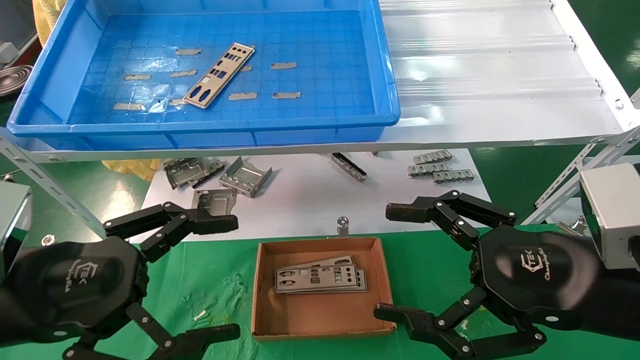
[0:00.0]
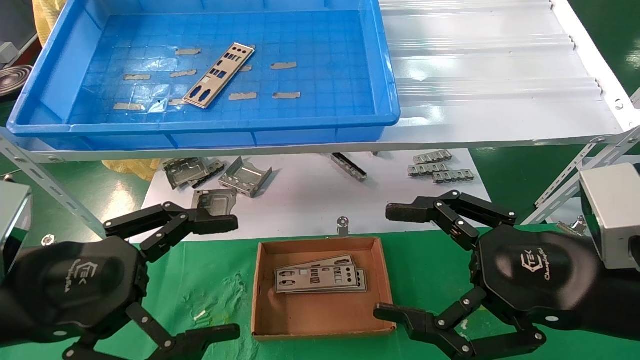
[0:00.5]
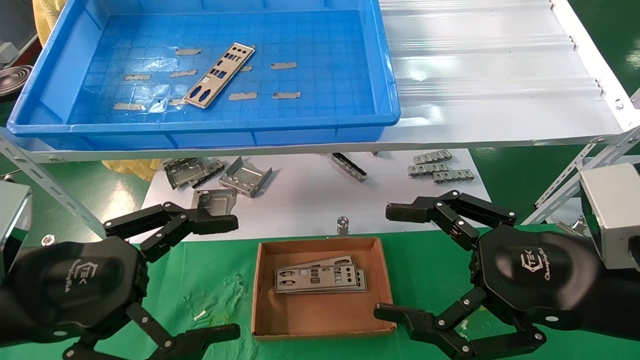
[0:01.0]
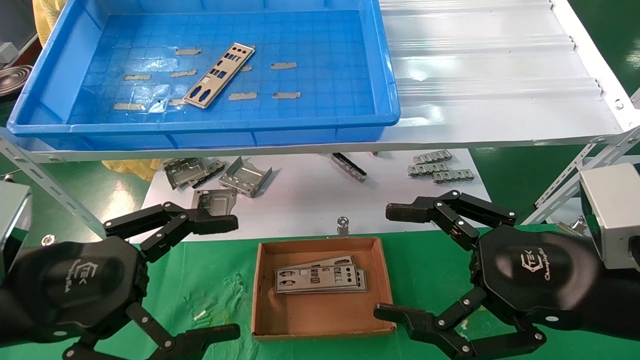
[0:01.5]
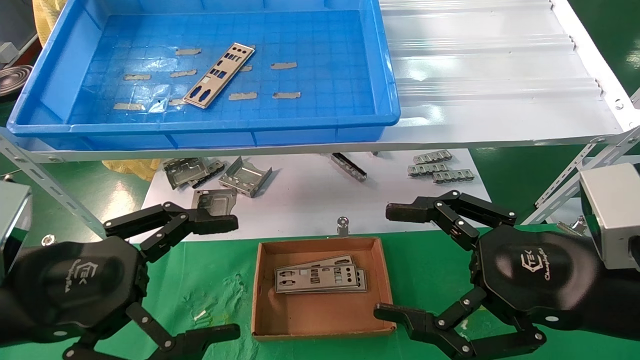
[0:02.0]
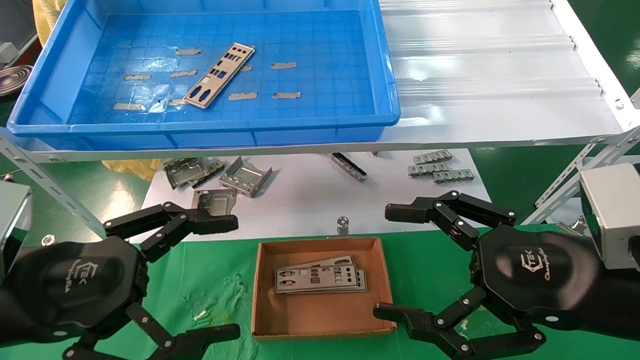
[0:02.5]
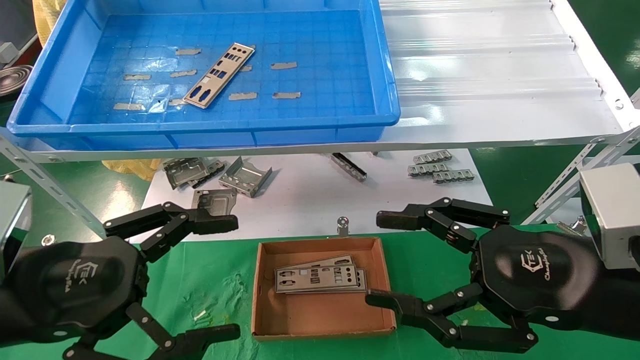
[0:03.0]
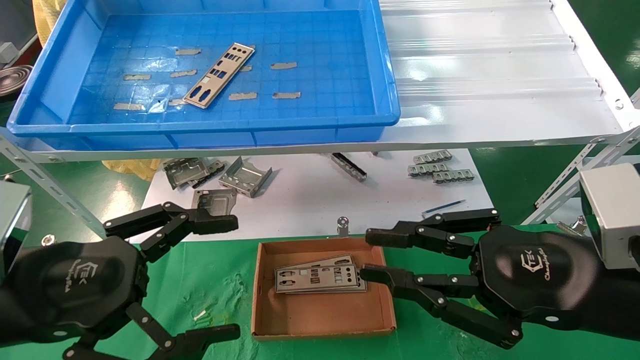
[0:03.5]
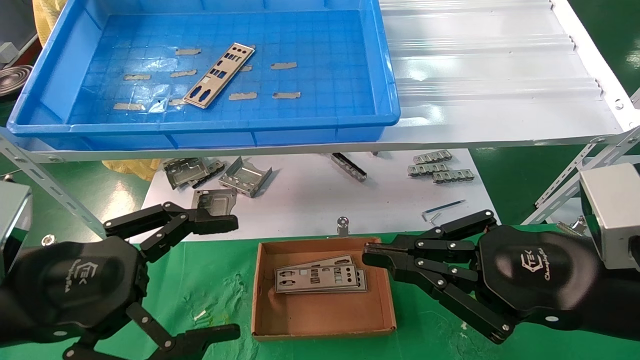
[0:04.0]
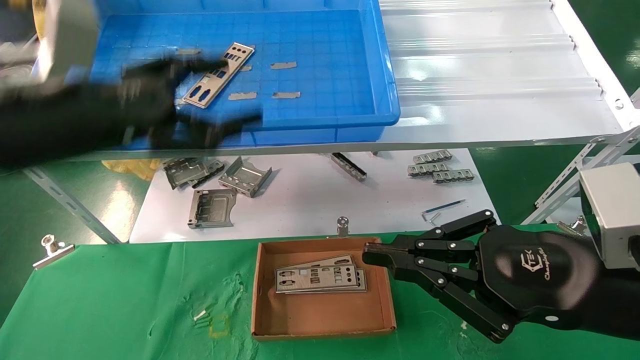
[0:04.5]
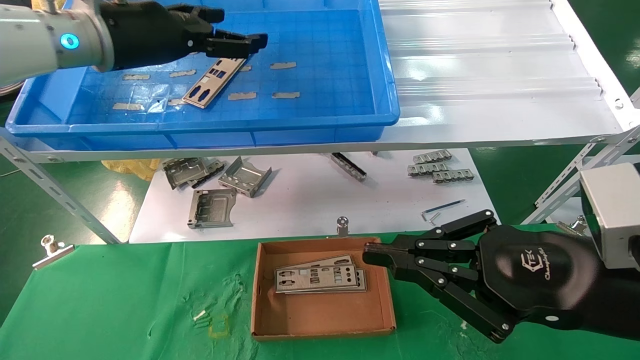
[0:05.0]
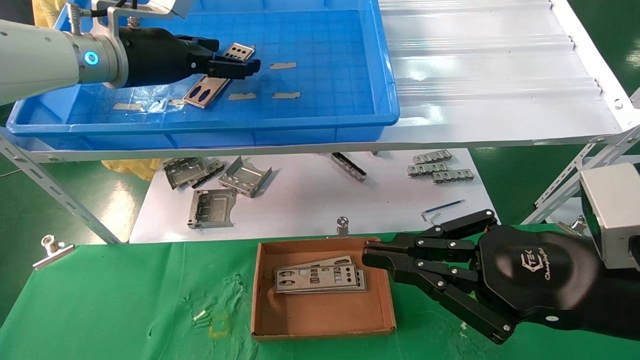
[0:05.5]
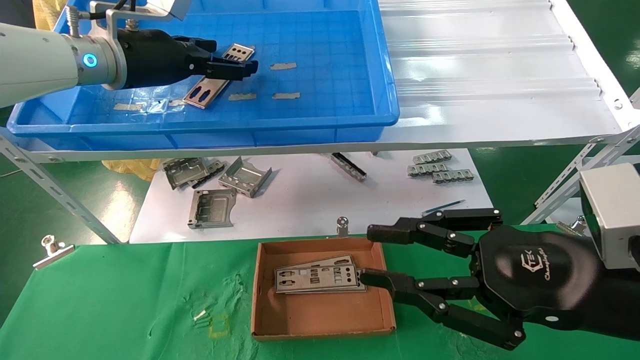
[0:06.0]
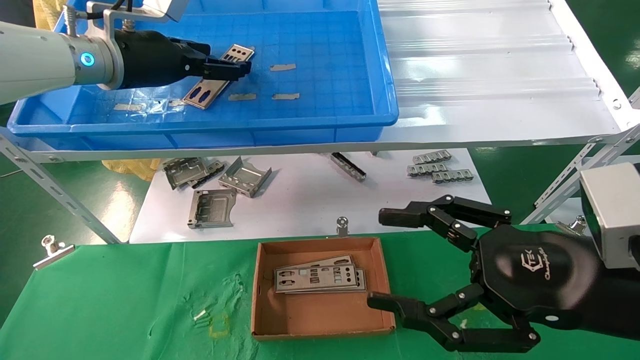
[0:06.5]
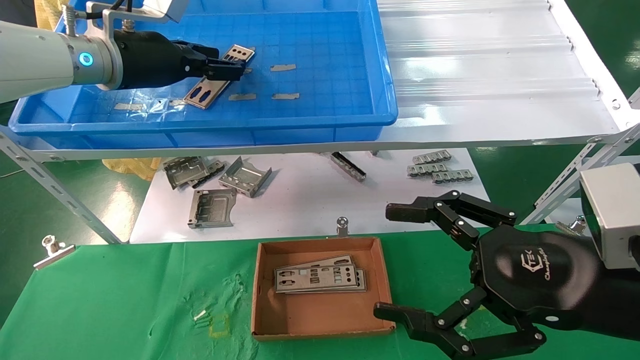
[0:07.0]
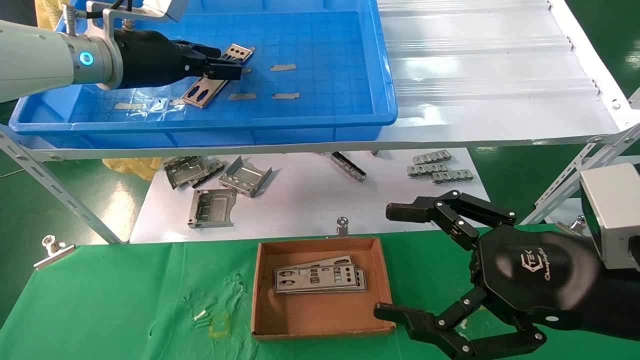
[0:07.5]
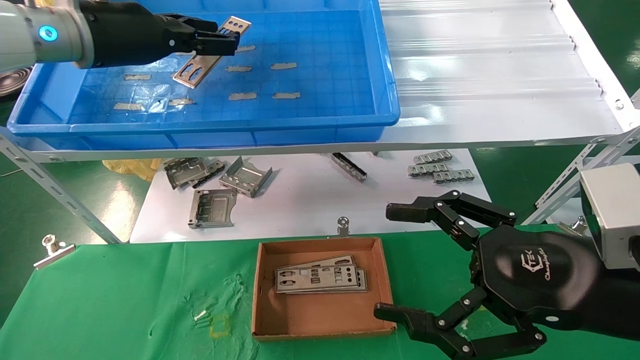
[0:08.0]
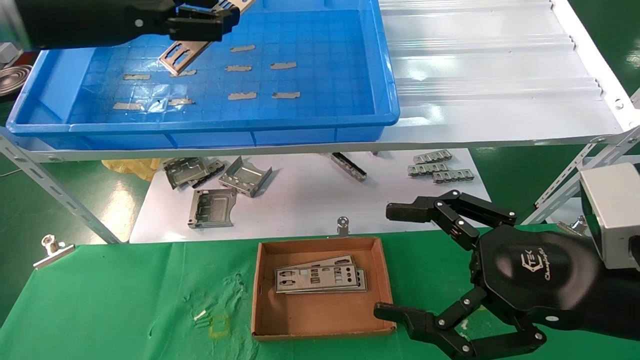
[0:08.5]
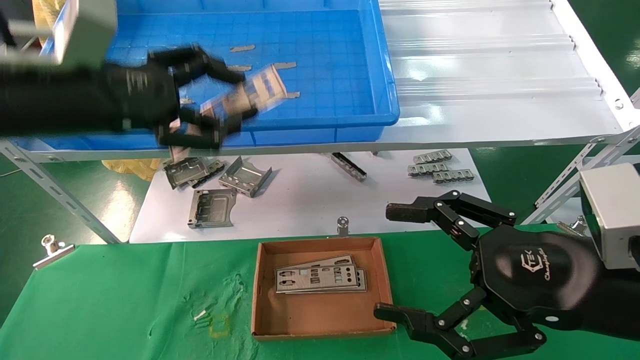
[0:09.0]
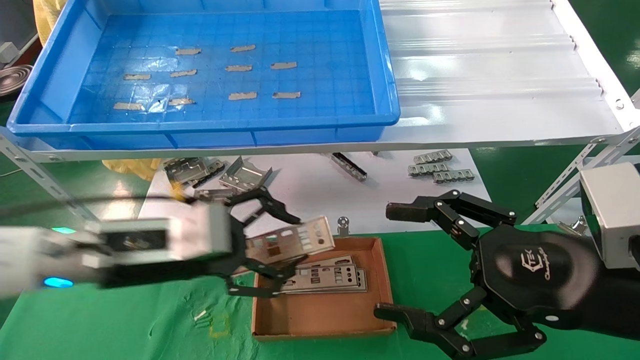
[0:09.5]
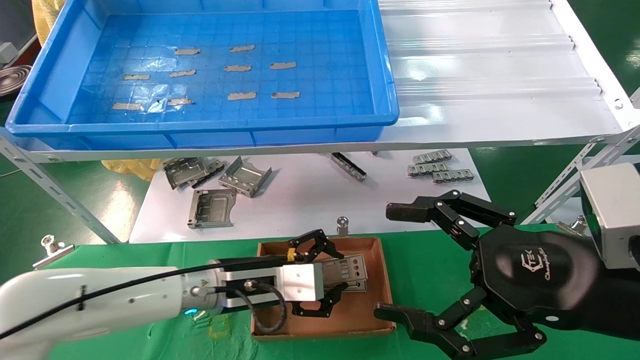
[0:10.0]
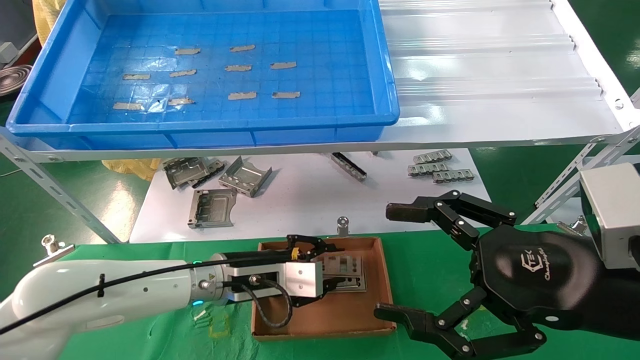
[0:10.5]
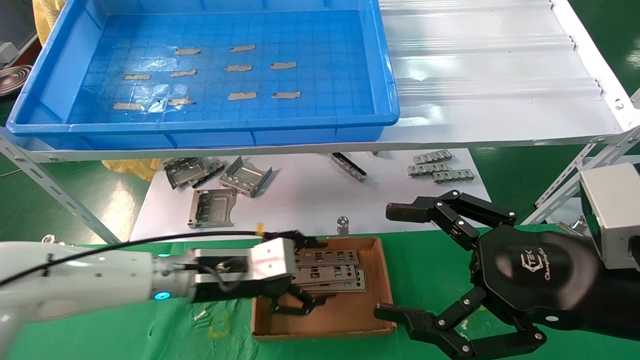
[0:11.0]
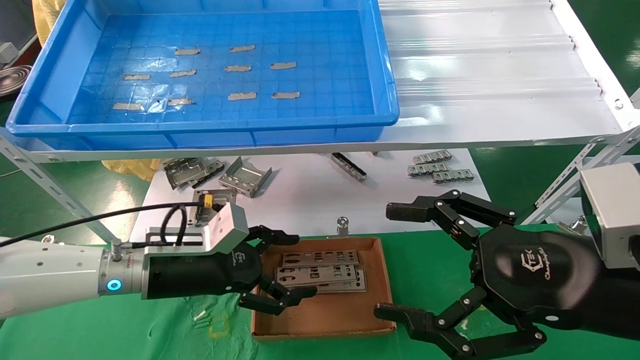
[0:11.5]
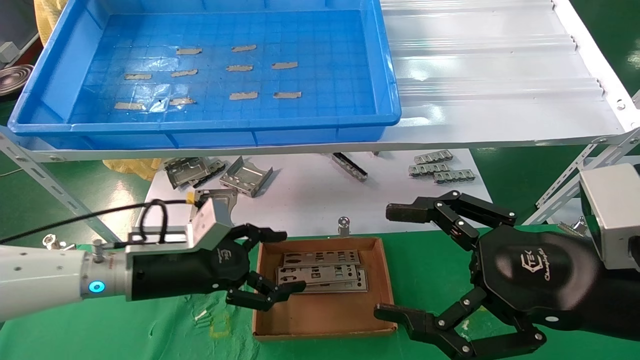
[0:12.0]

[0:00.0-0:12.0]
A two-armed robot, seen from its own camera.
Task of the whole recording: pick up the parts on the tray and put them in the cardboard box.
Step, 0:05.0 to 0:07.0: Pick up the IO bracket from the container box.
Step, 0:07.5 to 0:10.5: Place the IO bracket into the ingredient slot.
0:00.0 to 0:02.0: The two grippers keep their place.
0:02.0 to 0:04.0: The right gripper closes up.
0:04.0 to 0:06.0: The left gripper shifts about 30 cm forward and upward.
0:06.0 to 0:08.0: The left gripper ends up about 5 cm from where it was, and closes its fingers. Meanwhile the right gripper opens its fingers.
0:08.0 to 0:10.0: The left gripper is displaced downward and to the right by approximately 35 cm.
0:10.0 to 0:12.0: The left gripper travels to the left by roughly 10 cm, and opens its fingers.

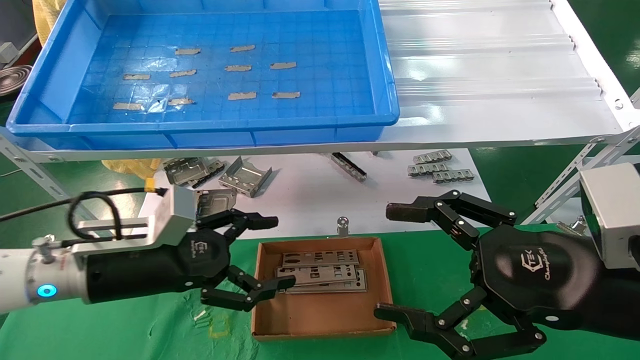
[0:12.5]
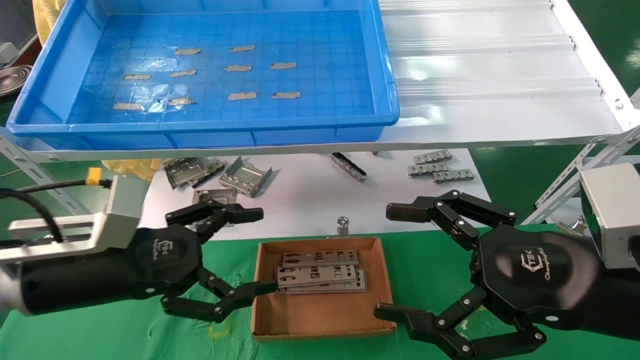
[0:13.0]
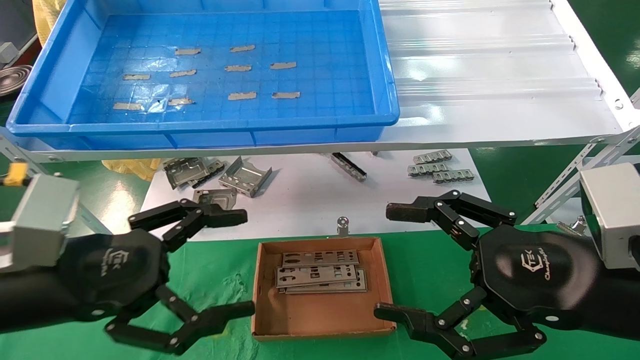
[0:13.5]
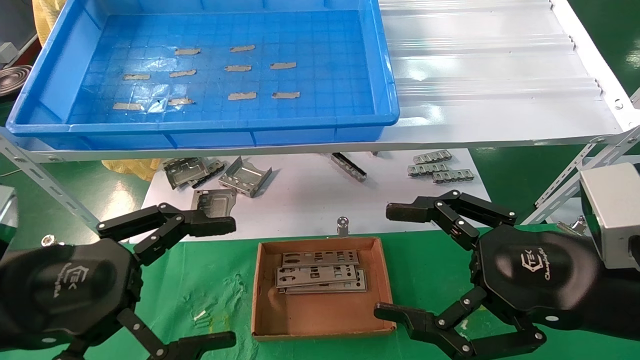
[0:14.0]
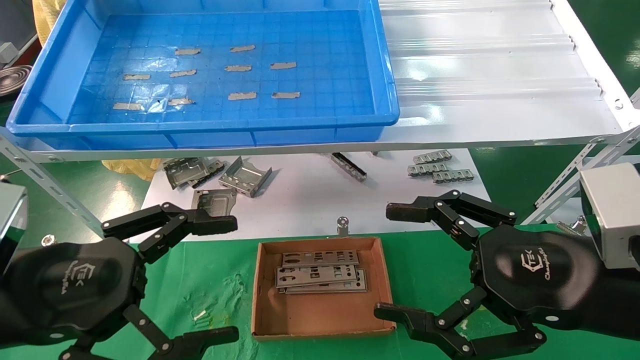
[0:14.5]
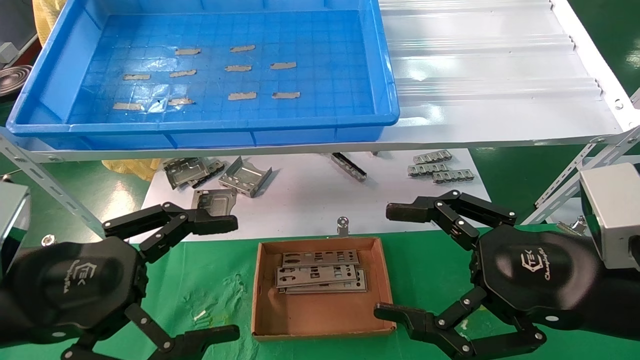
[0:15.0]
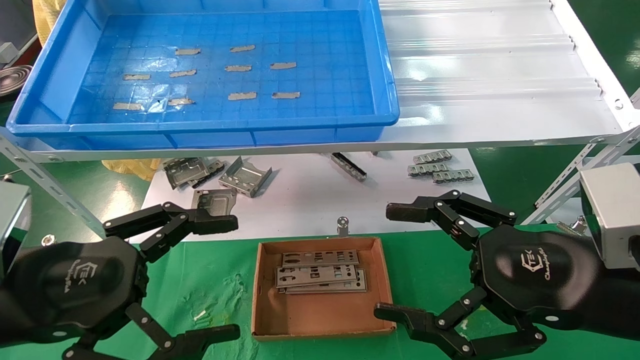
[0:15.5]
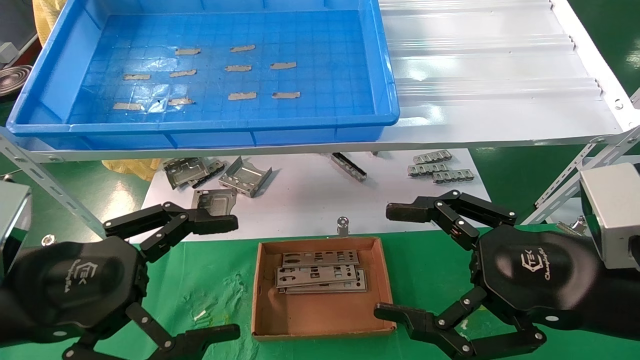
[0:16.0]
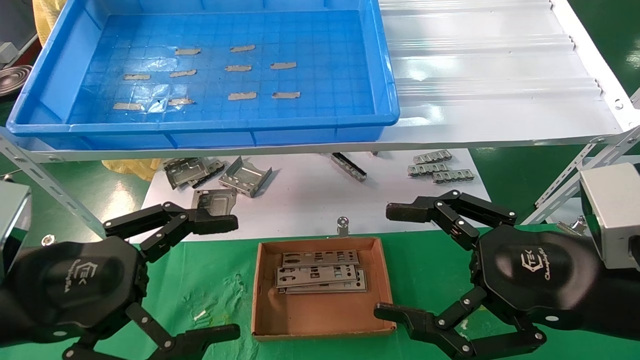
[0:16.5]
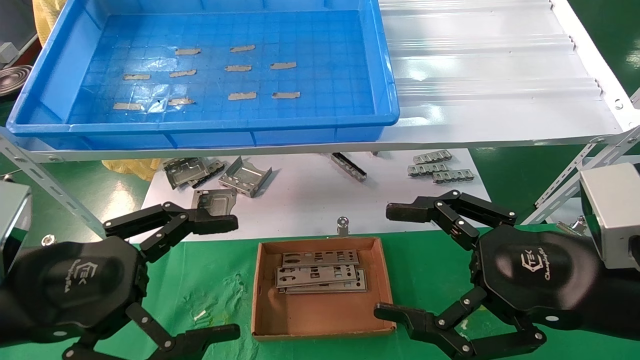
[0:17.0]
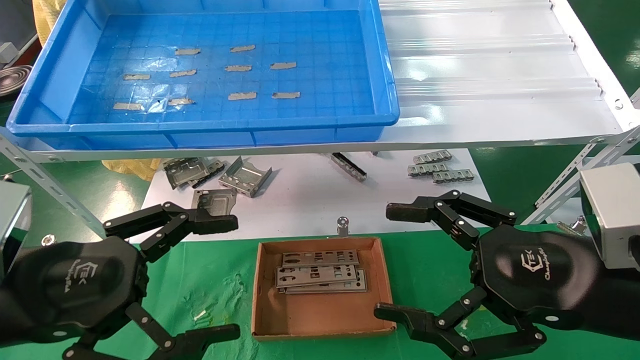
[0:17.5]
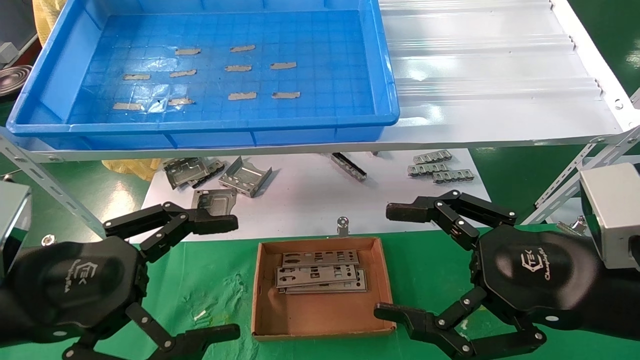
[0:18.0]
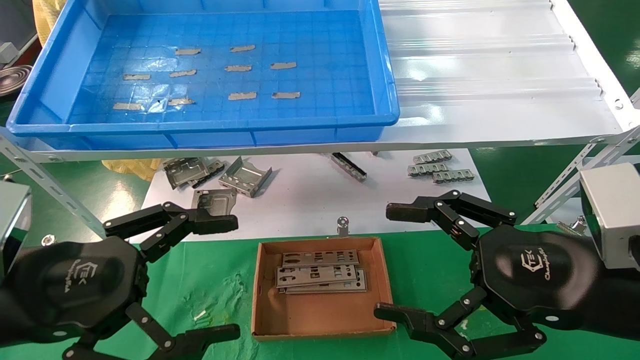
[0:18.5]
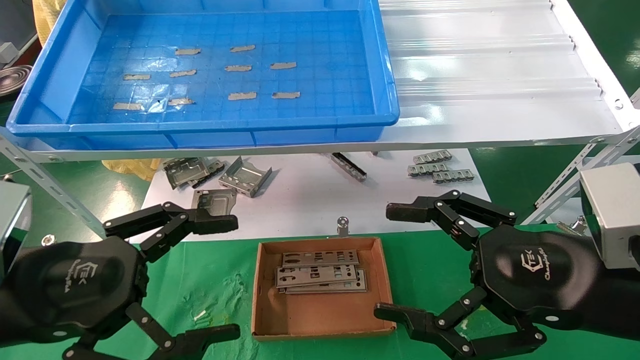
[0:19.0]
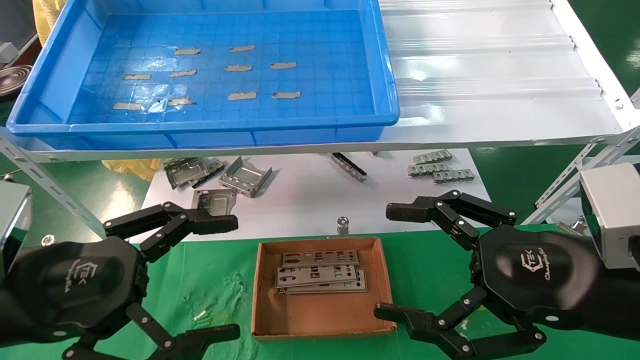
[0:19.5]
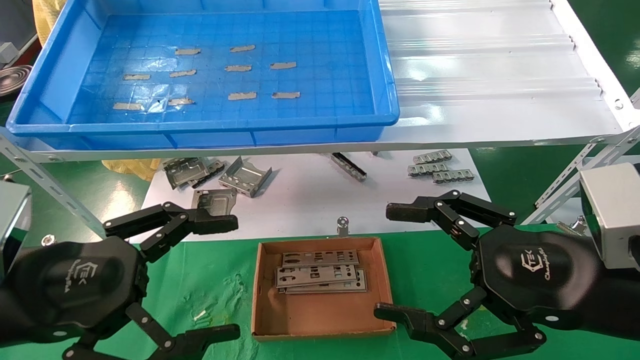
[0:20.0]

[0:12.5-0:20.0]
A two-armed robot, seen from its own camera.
Task of the whole recording: pick up the parts on the tray and put them in the cardboard box.
0:12.5 to 0:14.5: The left gripper goes some 15 cm backward and upward.
0:14.5 to 0:20.0: Both grippers stay put.
